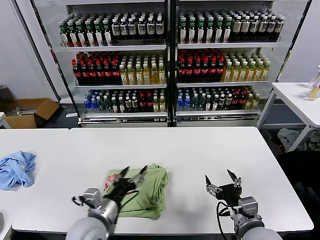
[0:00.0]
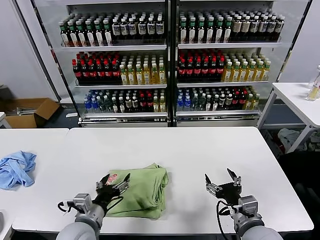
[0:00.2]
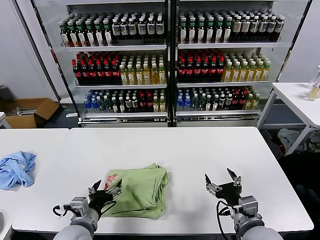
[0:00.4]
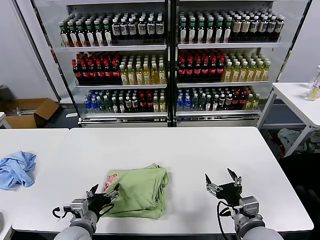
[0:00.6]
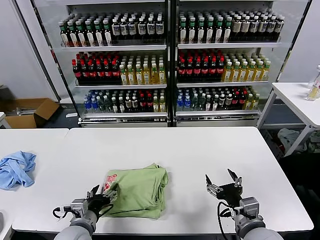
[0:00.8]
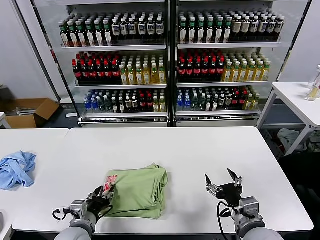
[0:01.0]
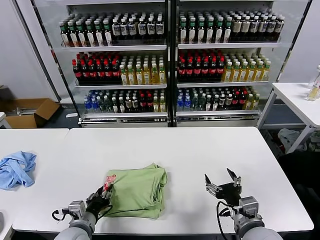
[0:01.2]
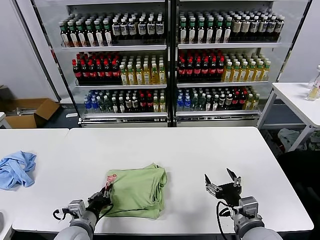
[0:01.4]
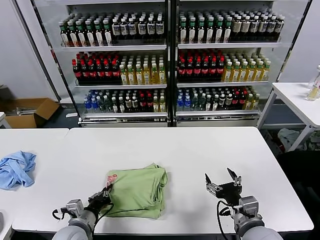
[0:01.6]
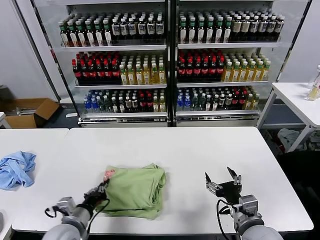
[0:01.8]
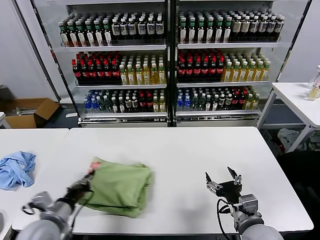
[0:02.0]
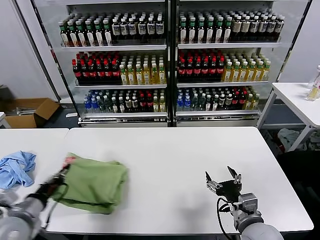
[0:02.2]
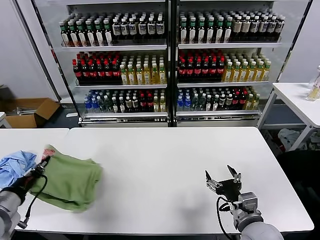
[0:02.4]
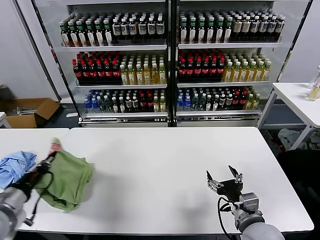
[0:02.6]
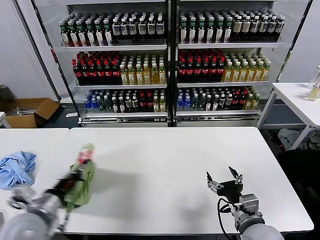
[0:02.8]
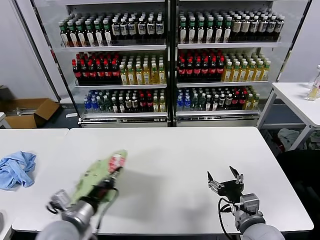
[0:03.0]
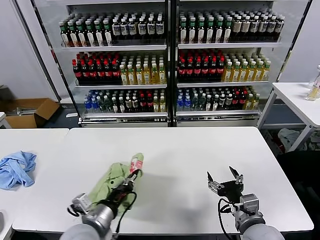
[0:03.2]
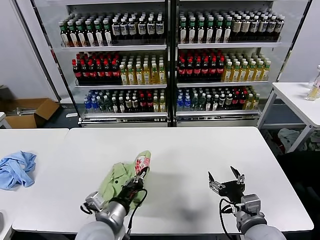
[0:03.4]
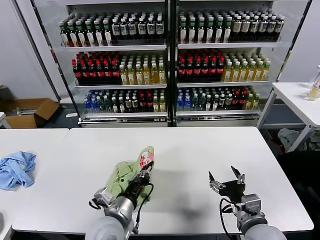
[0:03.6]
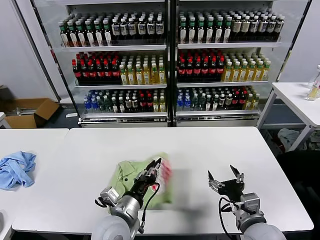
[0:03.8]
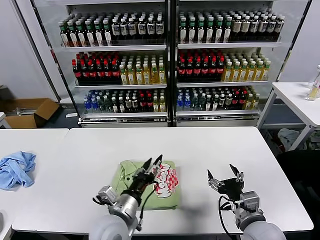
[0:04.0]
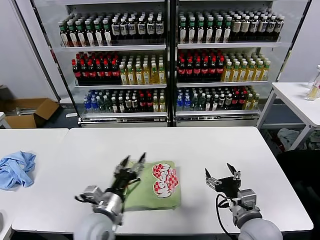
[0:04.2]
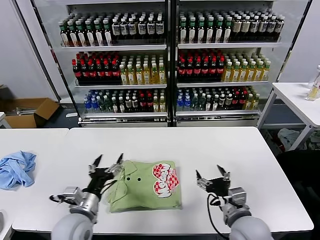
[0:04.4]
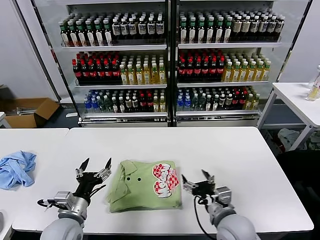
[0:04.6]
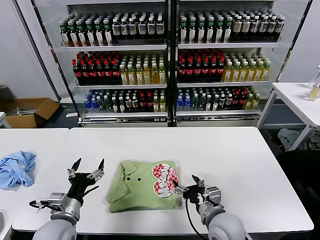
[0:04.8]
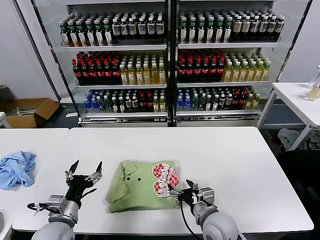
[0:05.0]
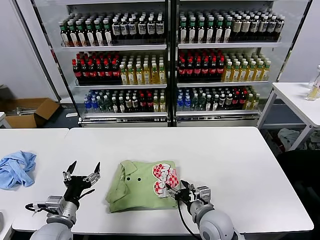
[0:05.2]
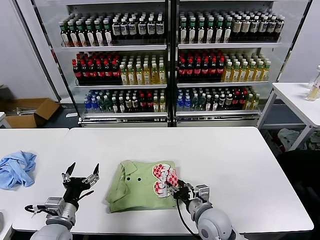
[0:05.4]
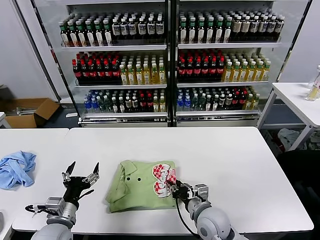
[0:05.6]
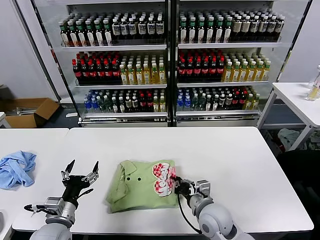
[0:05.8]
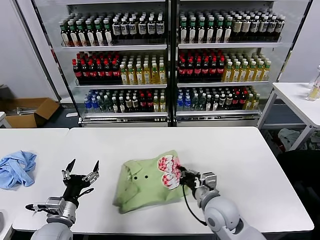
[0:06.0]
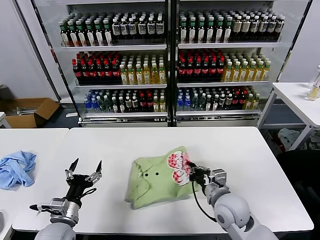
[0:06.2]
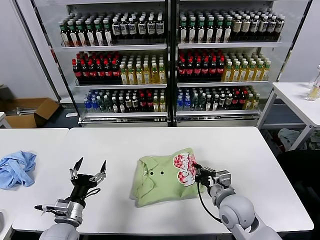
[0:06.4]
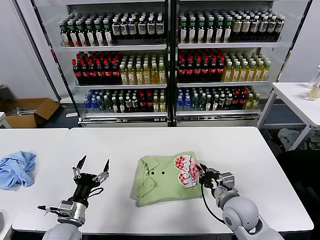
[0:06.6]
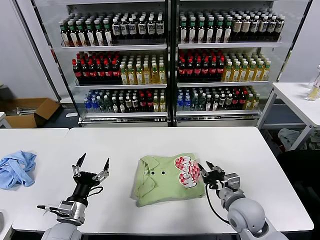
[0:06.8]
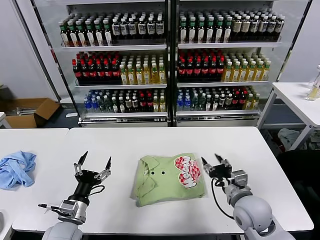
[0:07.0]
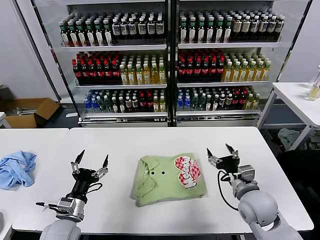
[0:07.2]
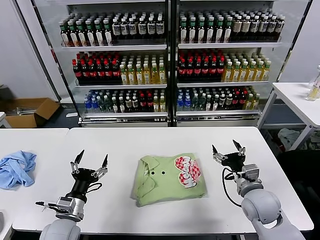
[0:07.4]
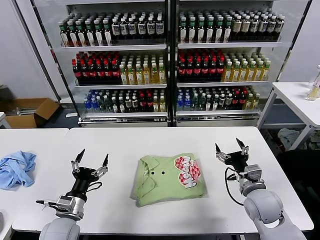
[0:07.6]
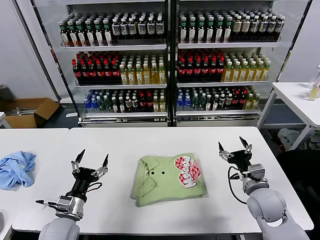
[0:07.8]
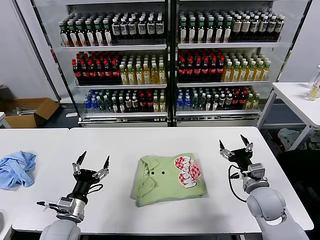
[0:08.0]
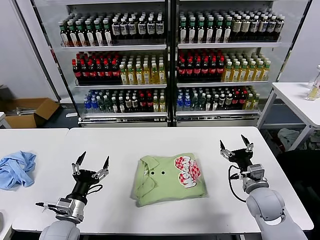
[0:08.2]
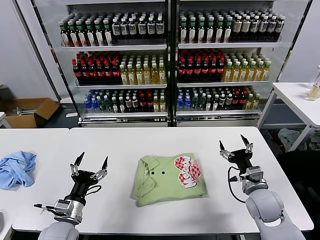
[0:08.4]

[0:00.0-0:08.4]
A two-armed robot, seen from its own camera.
Task of the whole recording: fold and organize the clothes.
Step, 0:00.0 to 0:04.0: Flip the folded clothes over with left gripper.
Step, 0:04.2 to 0:06.6: Drag the clothes to the center of the table.
0:00.0 to 0:01.4: The left gripper shifts some 10 cm to the left and downward, and closes up.
0:01.4 to 0:02.8: The left gripper shifts roughly 15 cm upward and to the left.
0:02.8 to 0:04.2: The left gripper moves to the right, roughly 20 cm, and opens up.
0:04.2 to 0:05.6: The right gripper travels to the left, downward and forward by approximately 15 cm, and closes up. Meanwhile the left gripper travels to the left by approximately 15 cm.
0:05.6 to 0:07.0: The right gripper heads to the right and upward, covering some 10 cm, and closes and opens again.
0:07.0 to 0:08.4: The right gripper travels to the right by roughly 5 cm, and opens its fingers.
